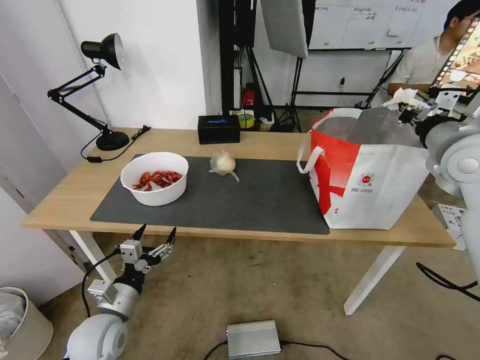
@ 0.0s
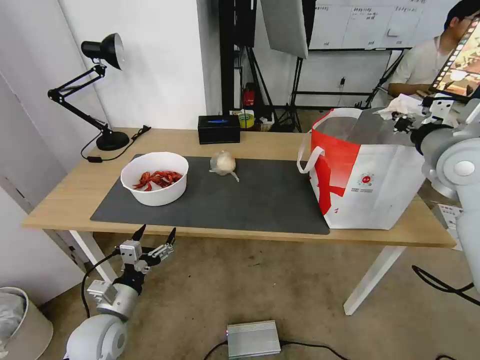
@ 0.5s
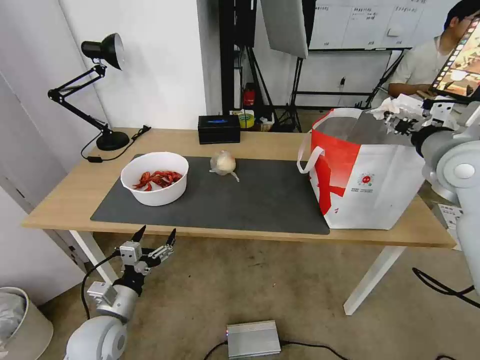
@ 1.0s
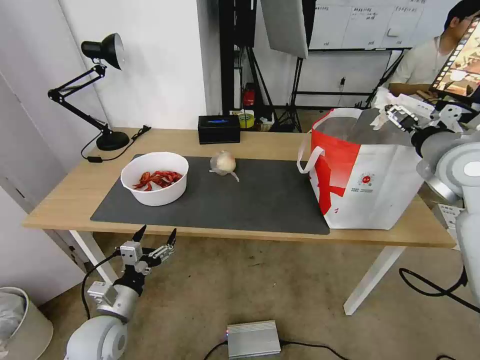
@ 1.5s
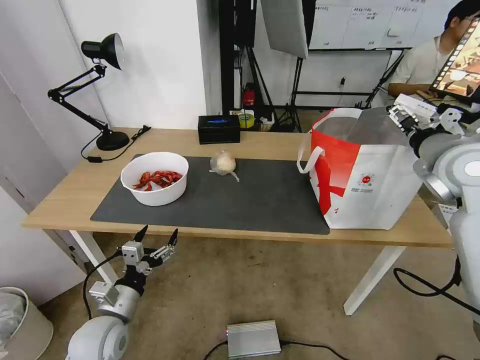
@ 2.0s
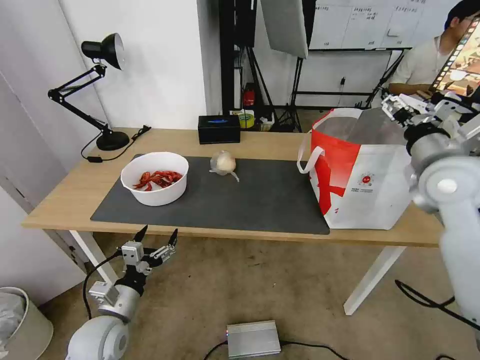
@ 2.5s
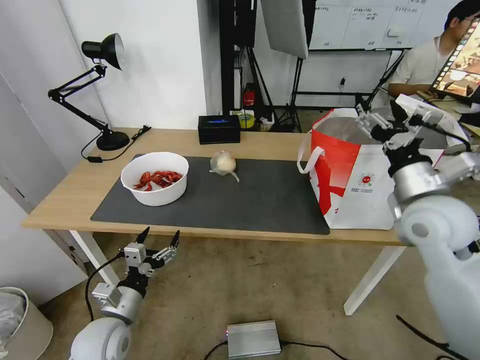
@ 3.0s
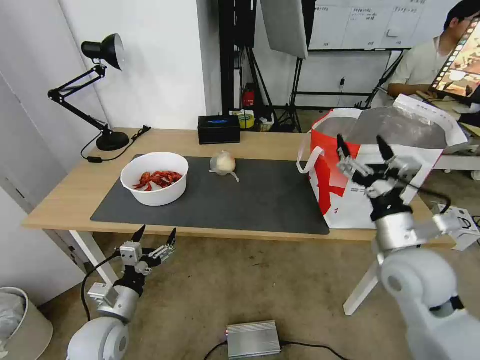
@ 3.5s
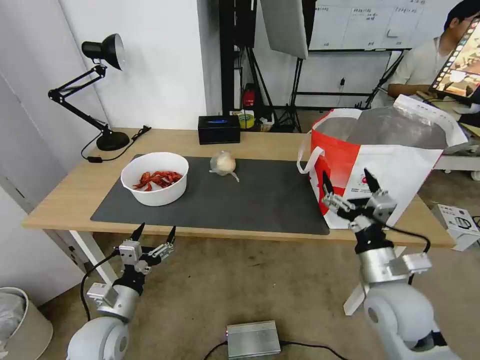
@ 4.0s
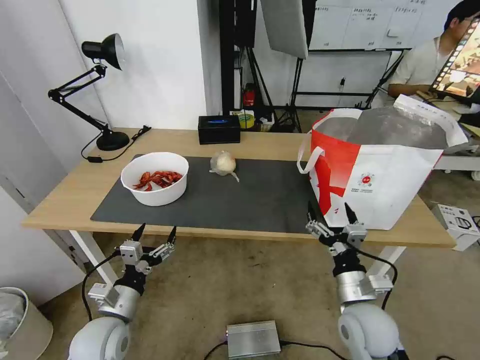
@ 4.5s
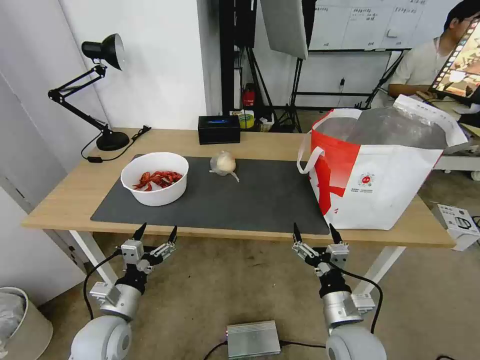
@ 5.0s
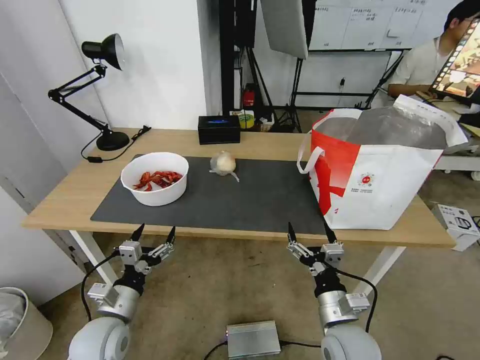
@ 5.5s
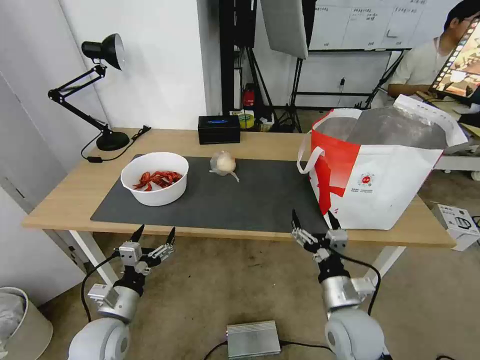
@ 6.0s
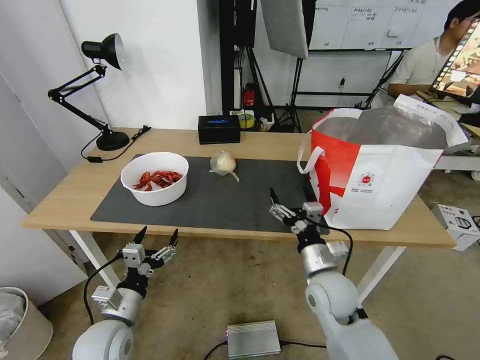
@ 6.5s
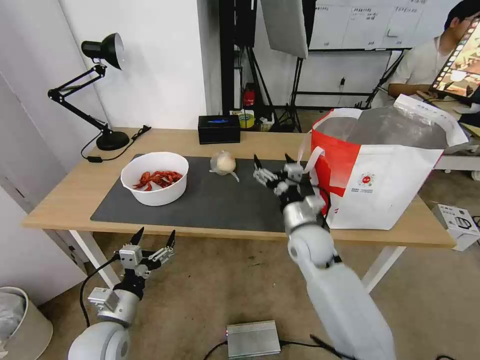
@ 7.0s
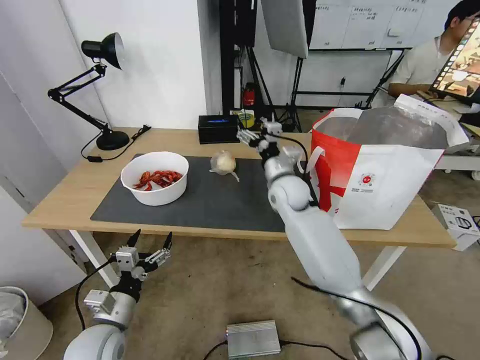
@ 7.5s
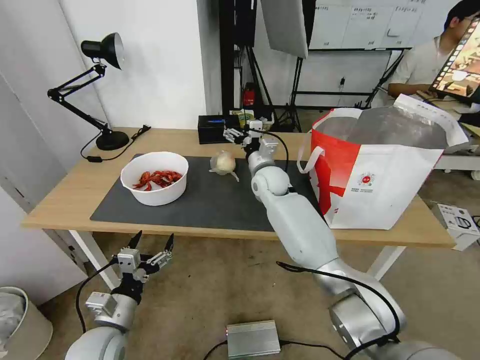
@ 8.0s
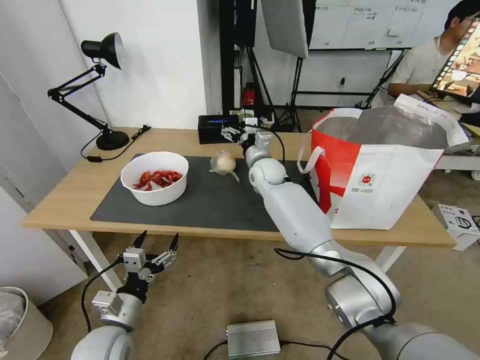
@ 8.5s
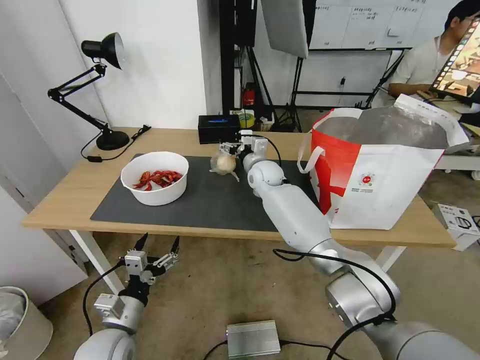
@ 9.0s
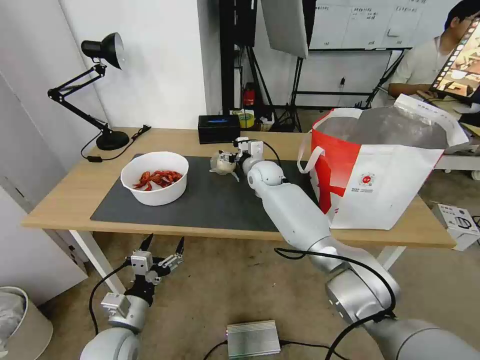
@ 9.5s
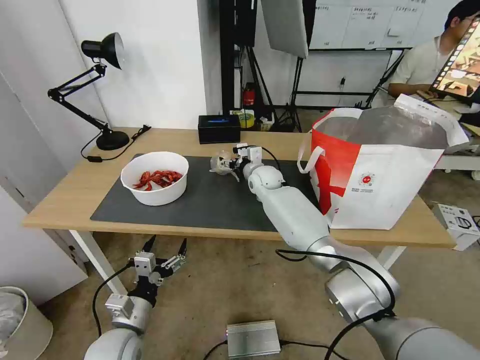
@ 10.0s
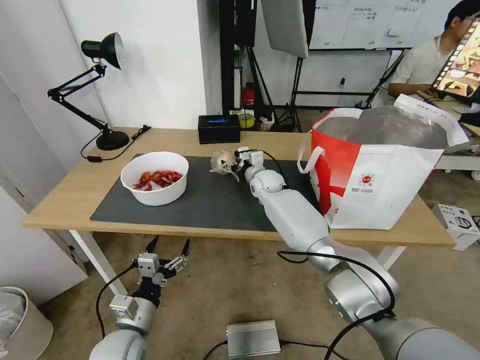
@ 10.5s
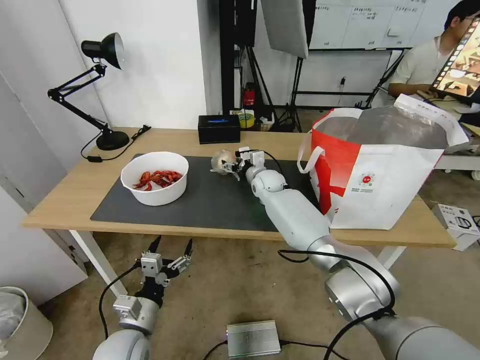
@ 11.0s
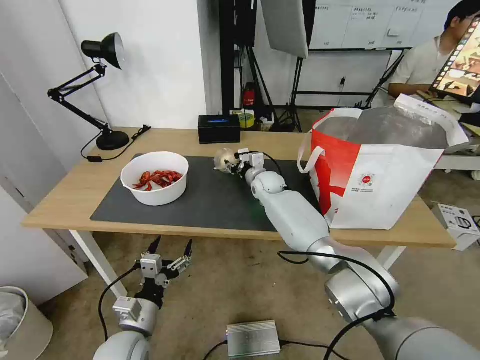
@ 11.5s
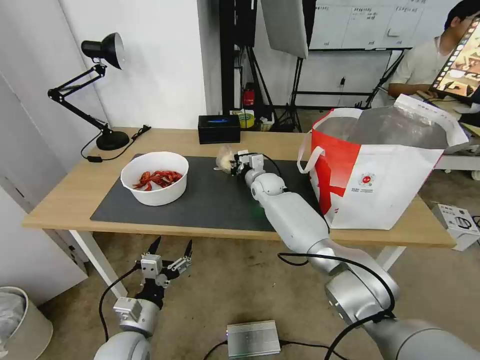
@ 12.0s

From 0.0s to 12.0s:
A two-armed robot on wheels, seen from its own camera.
Task of the whole recording: Pick up the trash from the table and place it into the takeout bag.
From 0.0s to 2.0s: The right gripper opens up.
From 2.0s to 4.0s: The right gripper moves downward, backward and to the left, some 30 cm.
From 4.0s to 6.0s: The right gripper heads downward and to the left, covering approximately 10 cm.
From 6.0s to 8.0s: The right gripper travels forward by approximately 35 cm.
From 8.0s to 10.0s: The right gripper ends up about 5 cm from where it was.
From 10.0s to 12.0s: The right gripper closes up.

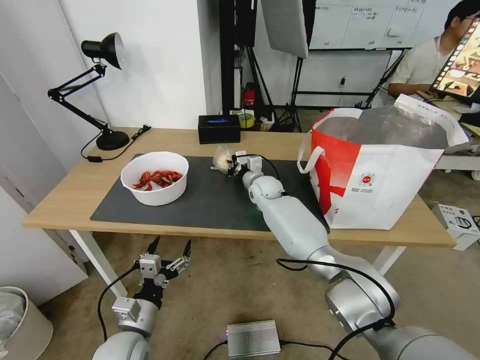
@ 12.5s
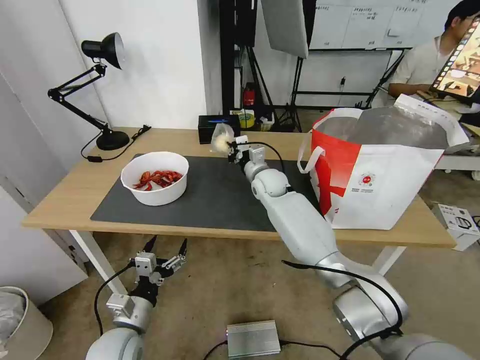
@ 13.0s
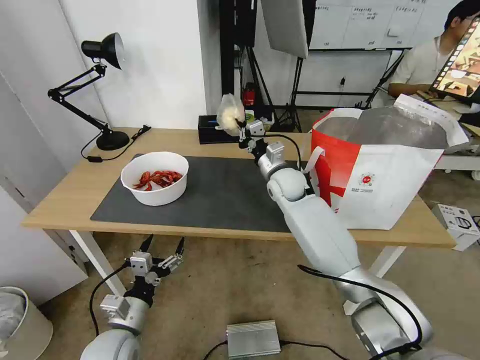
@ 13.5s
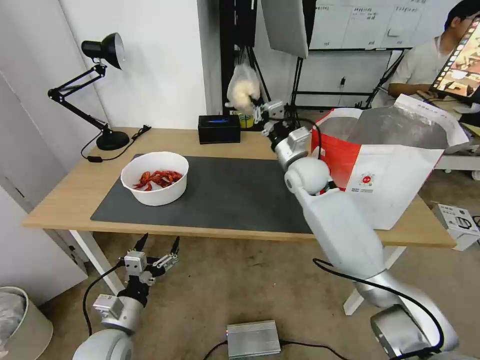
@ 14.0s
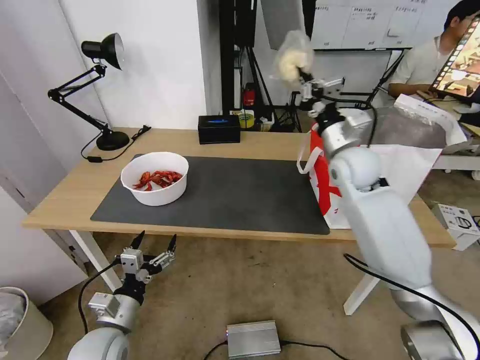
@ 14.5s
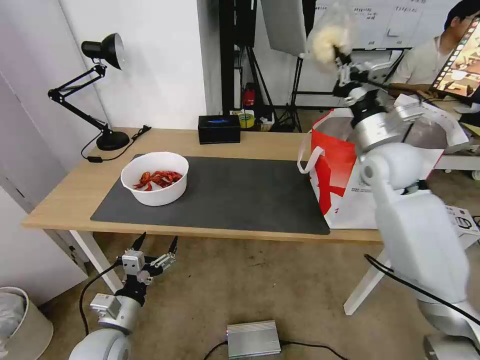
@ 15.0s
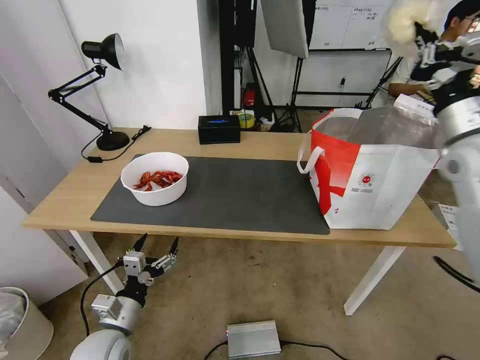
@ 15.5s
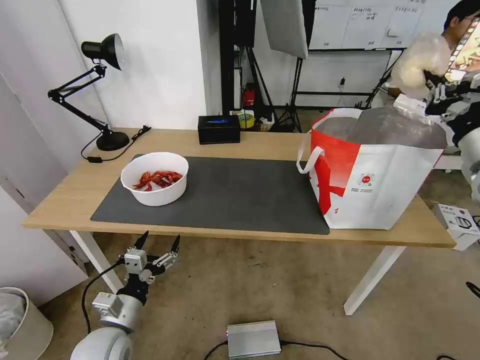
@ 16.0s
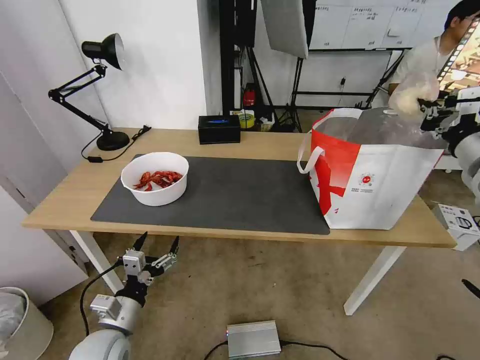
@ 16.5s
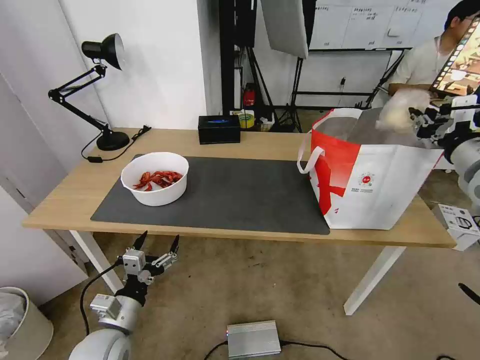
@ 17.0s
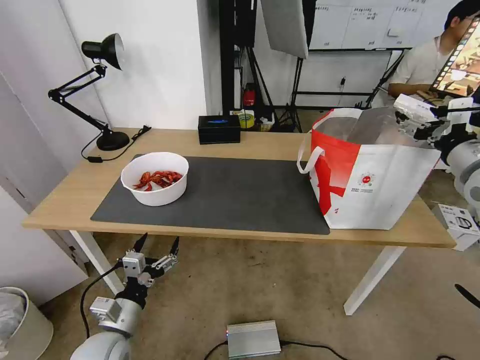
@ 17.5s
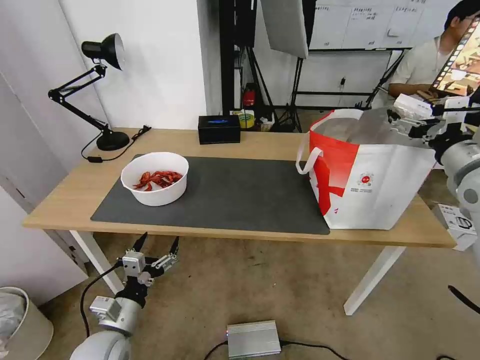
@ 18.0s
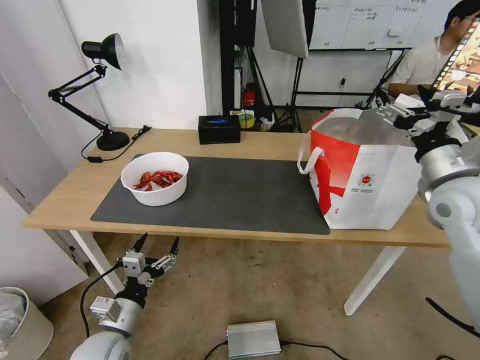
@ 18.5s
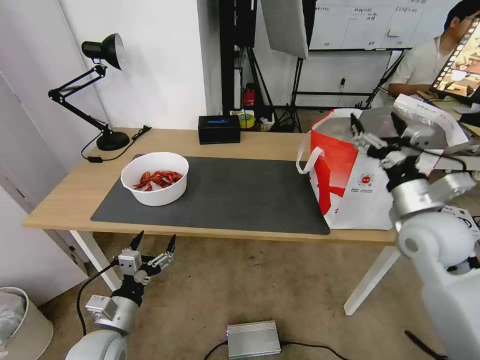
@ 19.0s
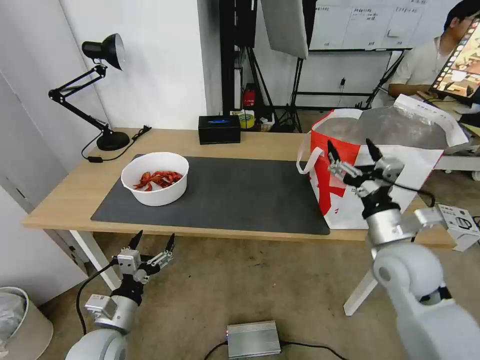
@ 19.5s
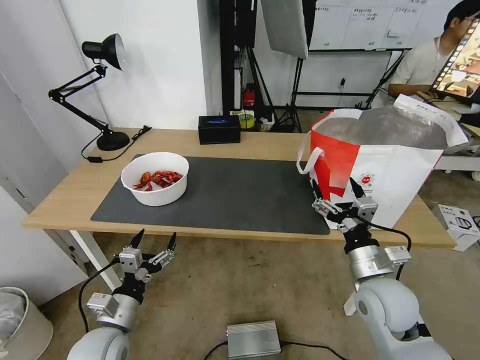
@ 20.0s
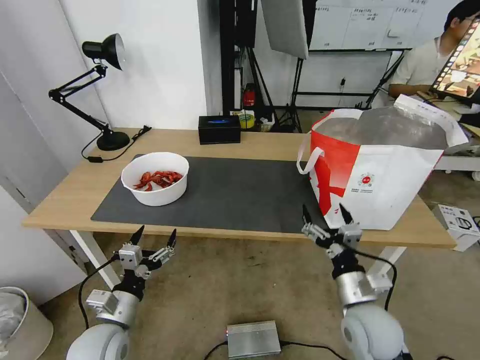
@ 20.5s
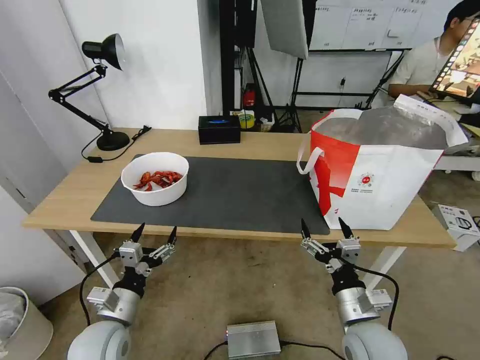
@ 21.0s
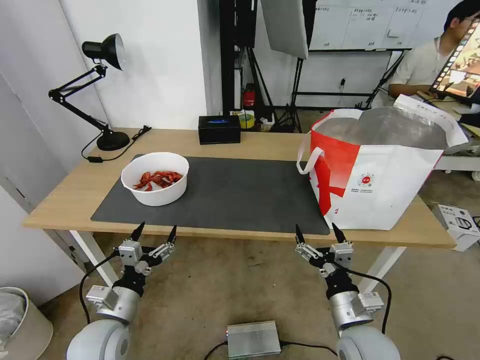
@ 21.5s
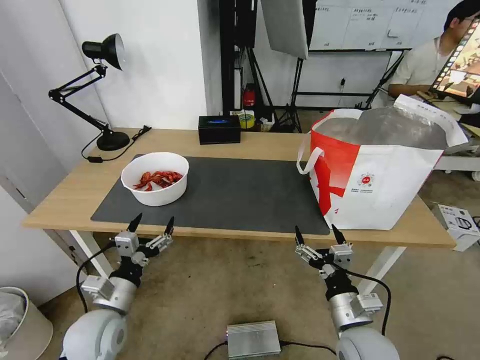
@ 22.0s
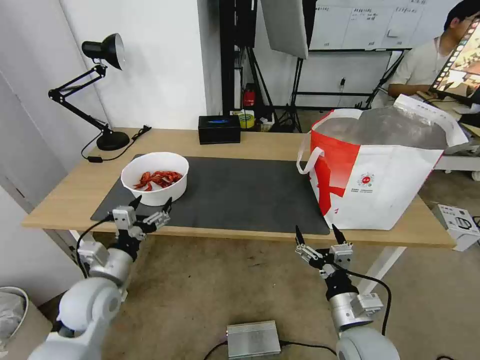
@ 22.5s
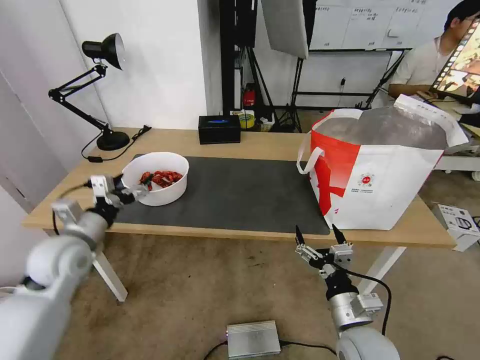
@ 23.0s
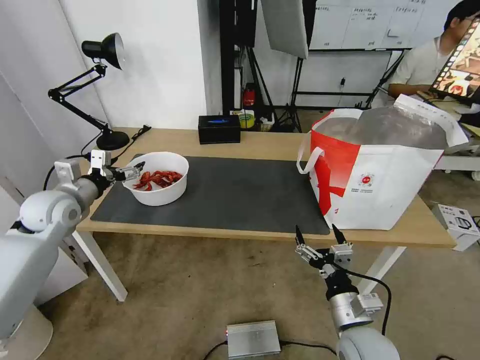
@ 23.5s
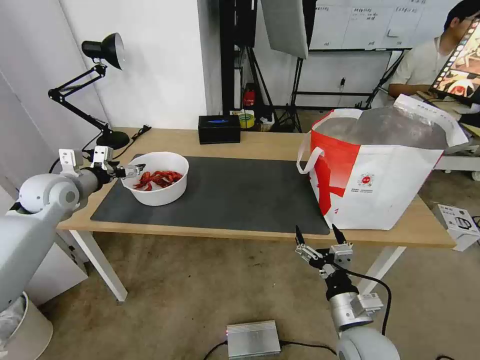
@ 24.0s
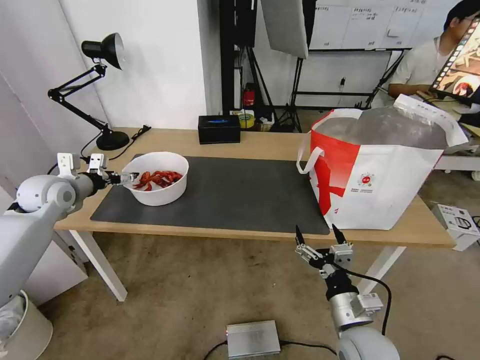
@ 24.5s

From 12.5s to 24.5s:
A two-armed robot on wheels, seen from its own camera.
Task of the whole recording: Pick up the trash from the table and place it into the takeout bag.
From 12.5s to 14.5s: The right gripper moves upward, to the right and backward, approximately 25 cm.
From 14.5s to 16.5s: The right gripper heads to the right, backward and upward, covering some 25 cm.
From 16.5s to 18.5s: The right gripper shifts about 5 cm to the left, and opens.
From 18.5s to 20.5s: The right gripper moves downward, backward and to the left, approximately 30 cm.
From 20.5s to 22.5s: The right gripper shifts by roughly 5 cm; the left gripper heads forward and upward, covering about 10 cm.
From 22.5s to 24.5s: The left gripper travels forward, to the left and upward by some 25 cm.

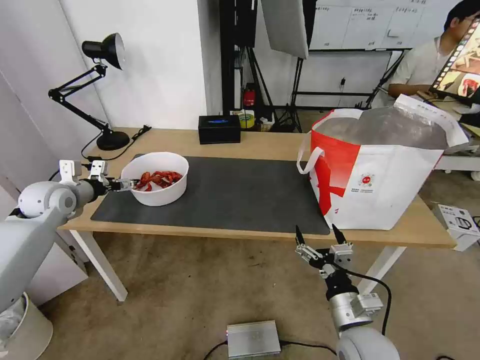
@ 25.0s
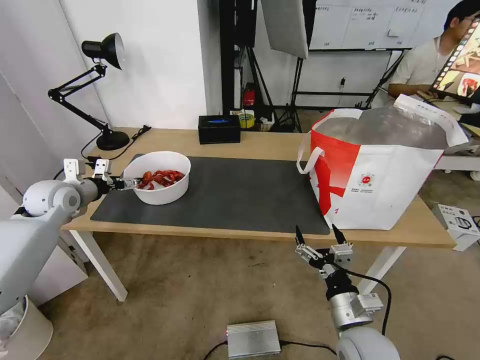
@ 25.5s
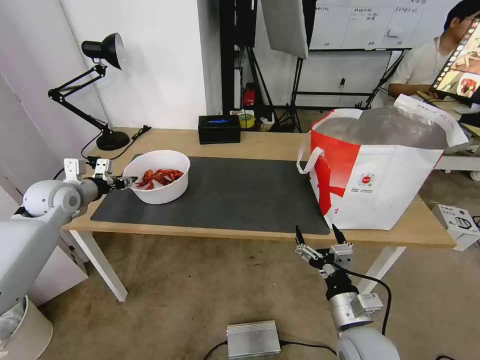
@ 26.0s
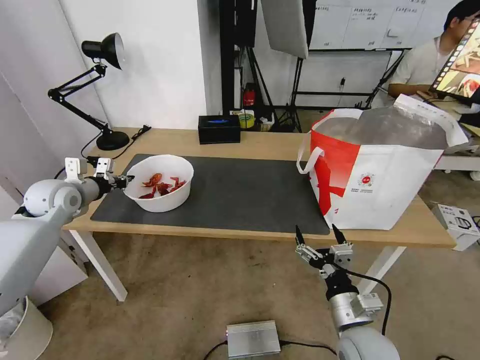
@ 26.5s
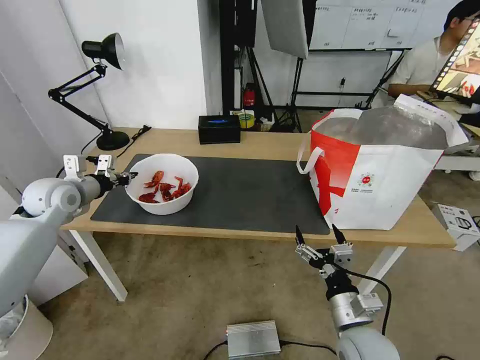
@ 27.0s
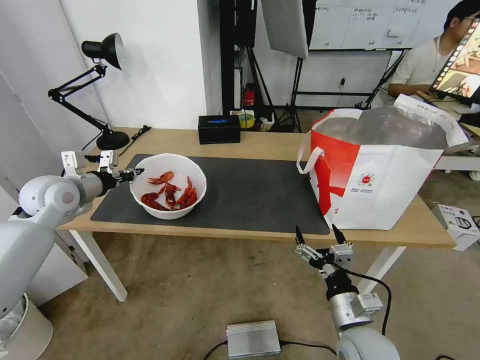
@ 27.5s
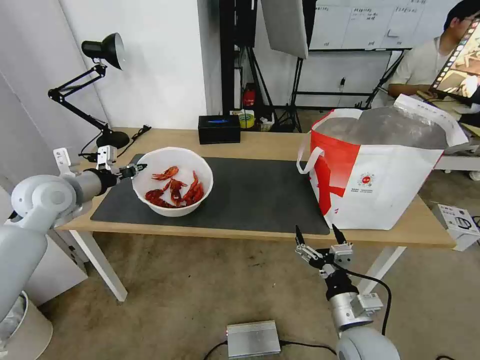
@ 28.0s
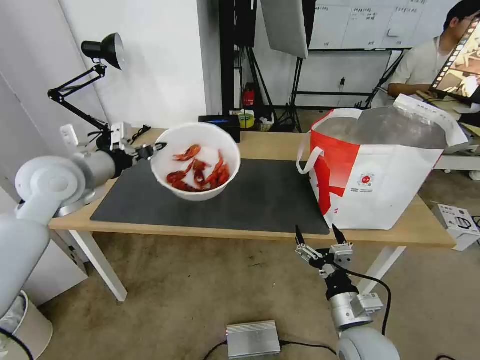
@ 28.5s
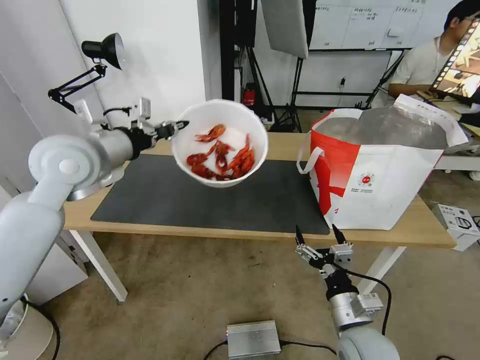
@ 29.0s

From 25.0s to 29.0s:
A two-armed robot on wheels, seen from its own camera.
Task of the whole recording: Pick up the trash from the table and place it into the takeout bag.
From 25.0s to 27.0s: The left gripper closes its fingers.
From 27.0s to 29.0s: The left gripper is displaced upward and to the right by approximately 20 cm.
